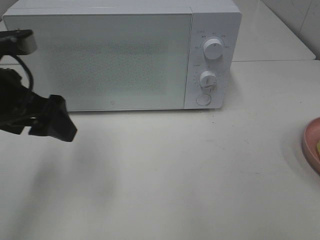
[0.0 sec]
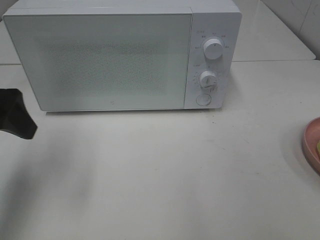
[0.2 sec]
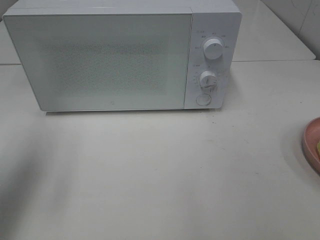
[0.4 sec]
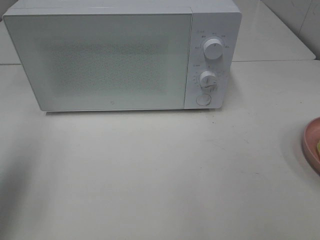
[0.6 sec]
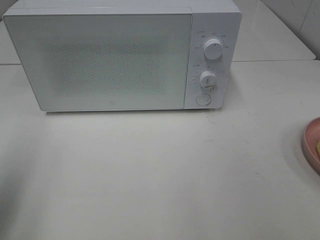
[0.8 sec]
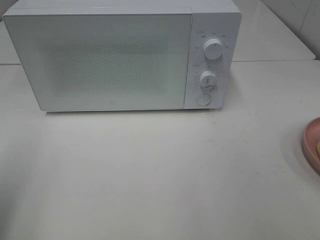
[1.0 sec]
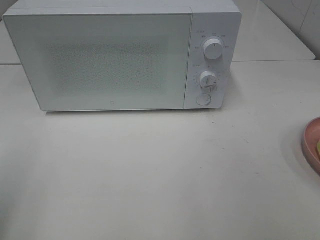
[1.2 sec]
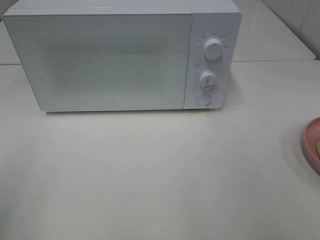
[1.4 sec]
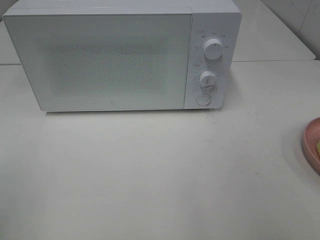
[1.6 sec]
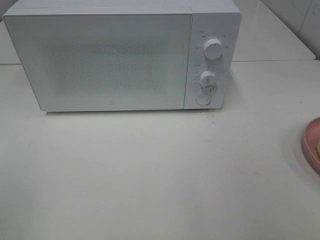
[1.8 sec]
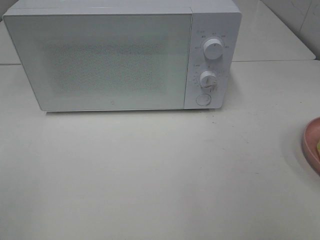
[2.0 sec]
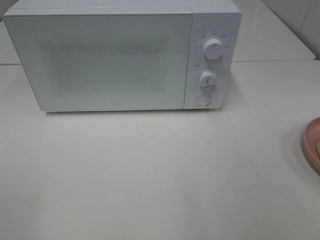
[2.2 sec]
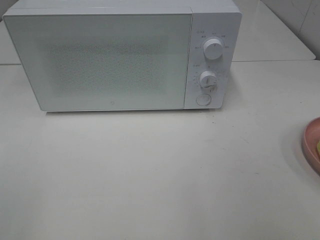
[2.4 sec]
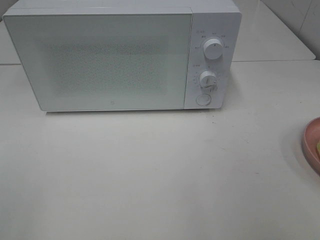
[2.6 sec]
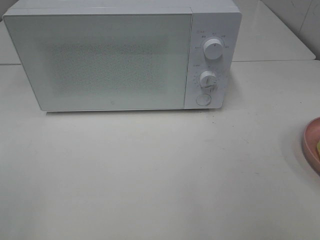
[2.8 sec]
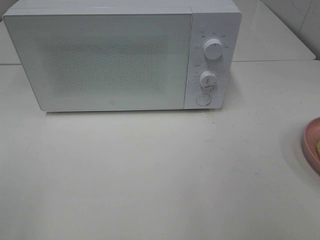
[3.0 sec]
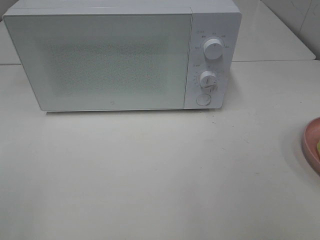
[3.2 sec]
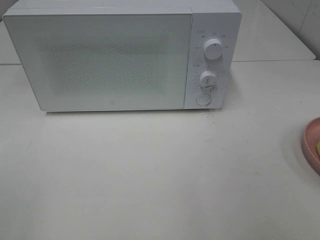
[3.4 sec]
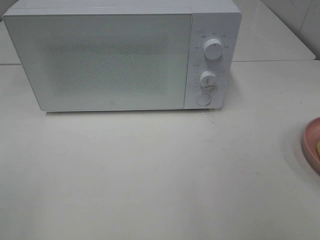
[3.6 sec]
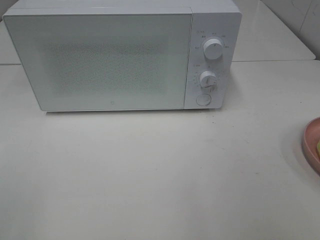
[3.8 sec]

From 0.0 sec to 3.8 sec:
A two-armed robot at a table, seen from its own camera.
Task of the whole recording: Heat Sandwich.
From 0.0 sec to 1.2 sec: The left gripper heads backward and to the left, covering about 20 cm.
From 2.6 sec to 3.8 sec: Both grippers stay put.
